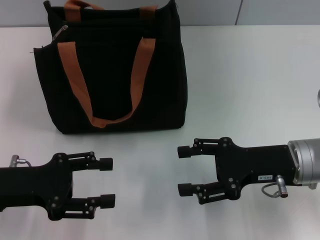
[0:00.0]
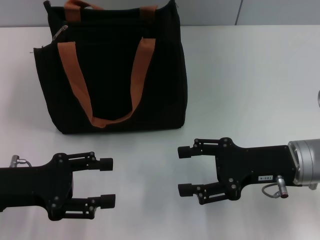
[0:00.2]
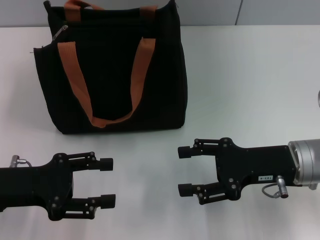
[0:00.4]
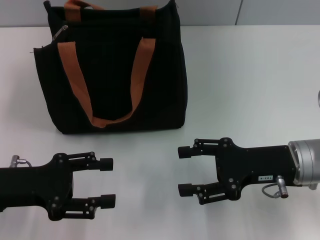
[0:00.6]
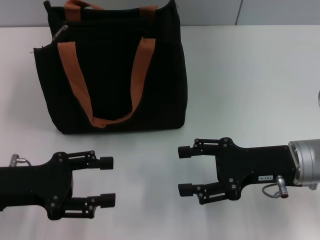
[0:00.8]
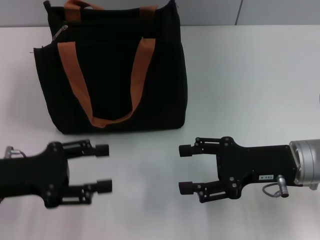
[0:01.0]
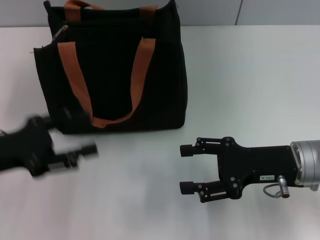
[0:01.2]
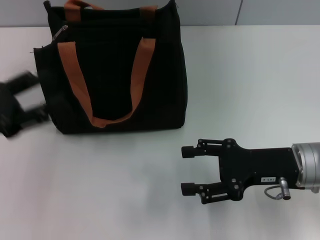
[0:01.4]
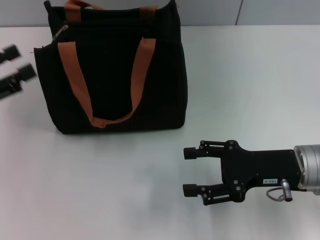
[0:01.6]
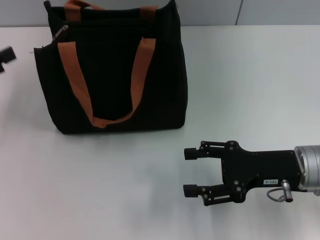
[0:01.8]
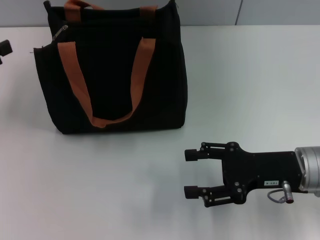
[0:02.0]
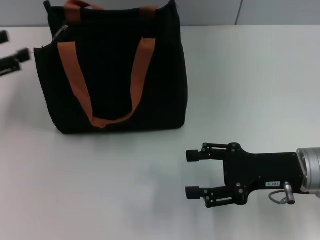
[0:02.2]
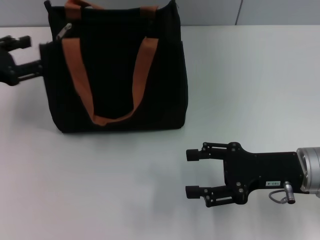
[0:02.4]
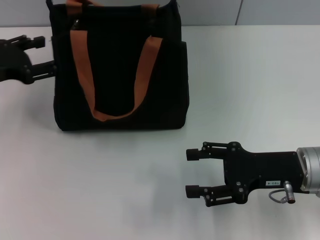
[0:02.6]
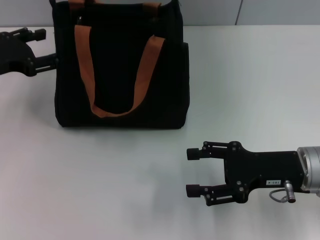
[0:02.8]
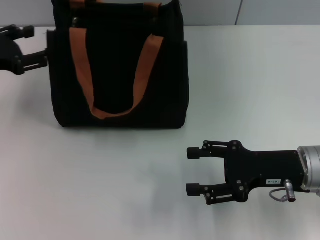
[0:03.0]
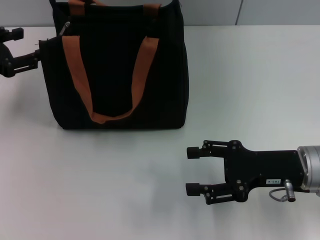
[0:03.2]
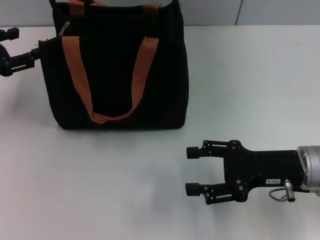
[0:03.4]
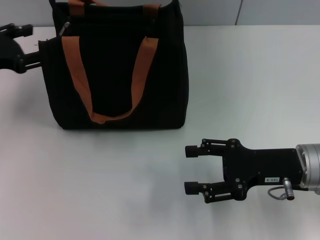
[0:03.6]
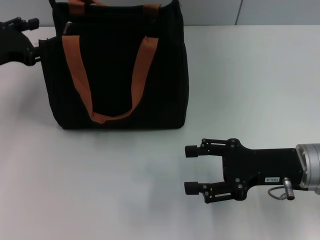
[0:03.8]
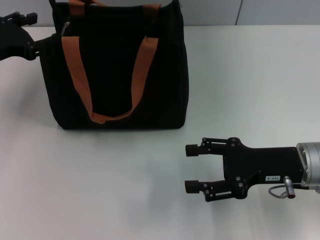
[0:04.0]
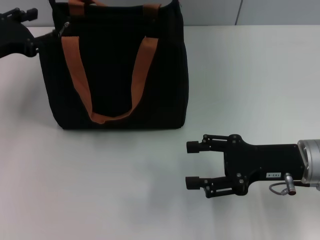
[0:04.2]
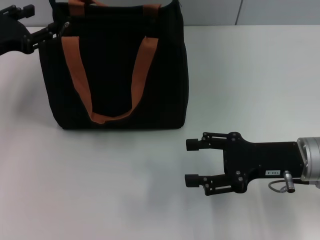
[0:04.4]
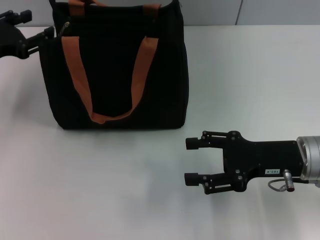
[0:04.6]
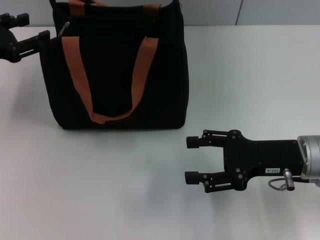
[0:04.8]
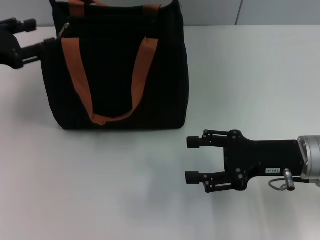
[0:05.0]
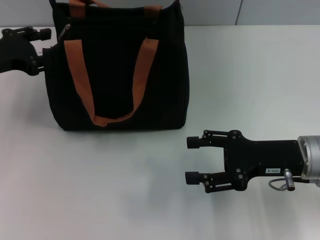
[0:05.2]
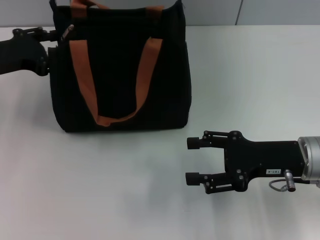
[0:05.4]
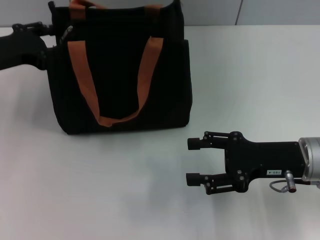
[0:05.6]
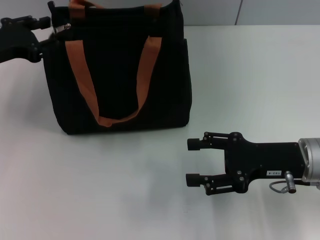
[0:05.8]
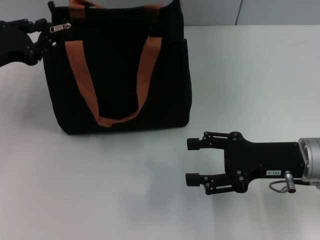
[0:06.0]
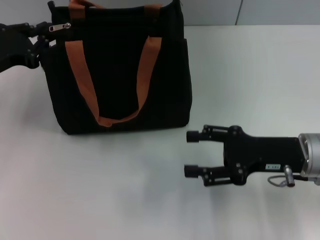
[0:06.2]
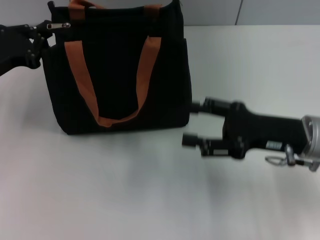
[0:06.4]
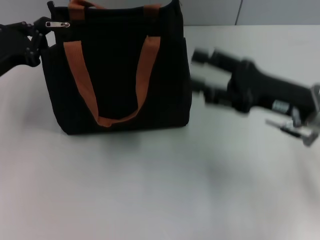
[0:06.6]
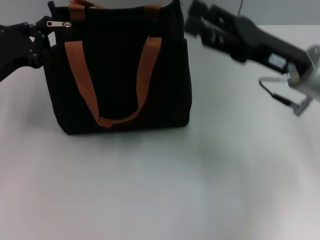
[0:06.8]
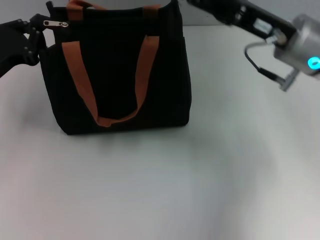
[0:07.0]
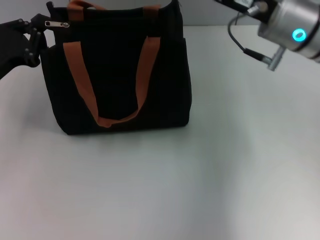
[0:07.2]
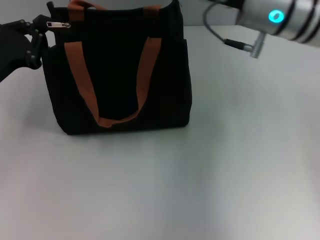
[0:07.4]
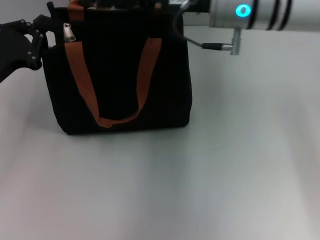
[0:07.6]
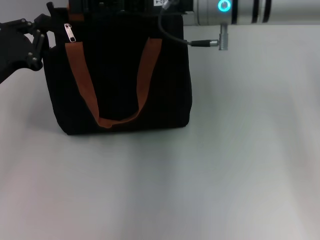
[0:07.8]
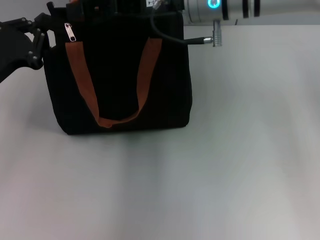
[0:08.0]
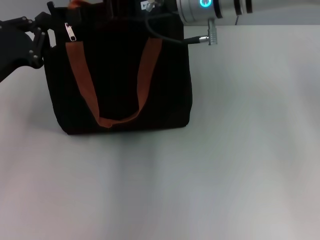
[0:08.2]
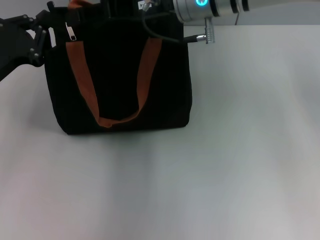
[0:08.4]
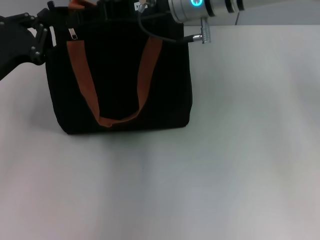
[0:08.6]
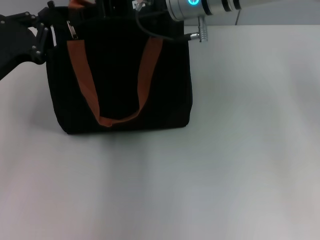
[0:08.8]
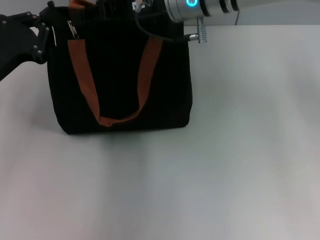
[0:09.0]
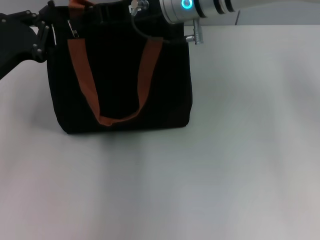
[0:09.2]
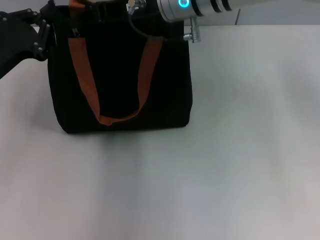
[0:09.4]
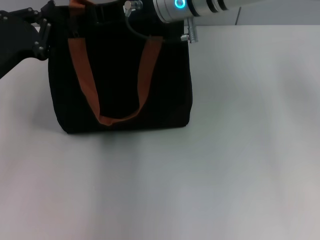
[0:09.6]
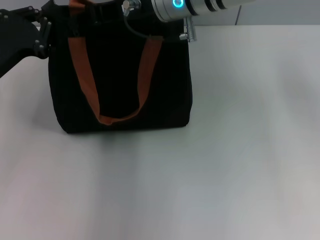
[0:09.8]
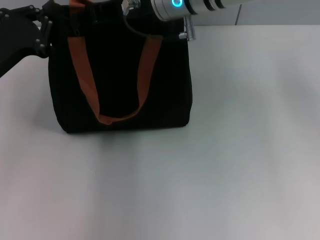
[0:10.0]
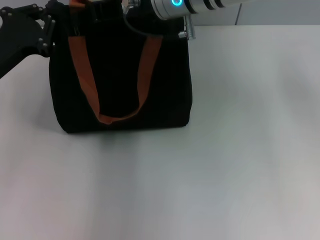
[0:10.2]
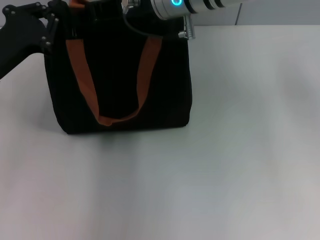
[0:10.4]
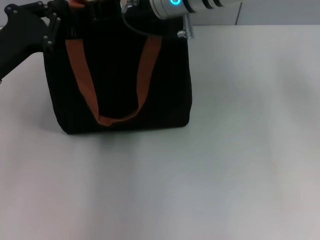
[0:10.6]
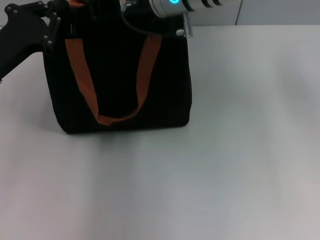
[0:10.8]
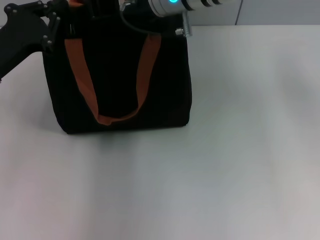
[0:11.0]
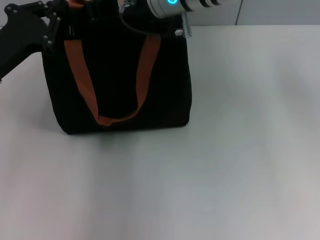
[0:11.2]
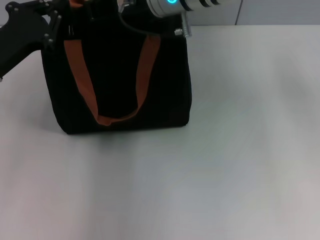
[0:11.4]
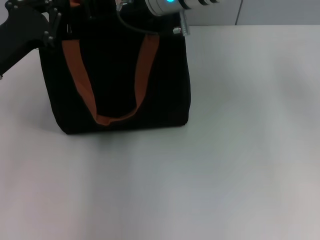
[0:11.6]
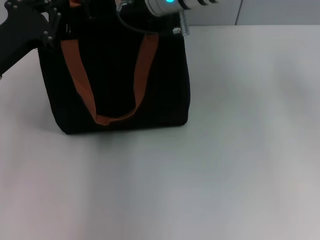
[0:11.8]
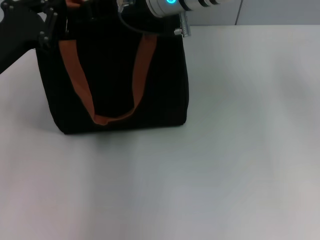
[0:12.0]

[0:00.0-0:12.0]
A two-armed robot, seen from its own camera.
0:00.0 to 0:01.6: The left gripper shifts roughly 5 cm to the left.
0:01.6 to 0:03.0: The left gripper moves forward, roughly 10 cm.
0:03.0 to 0:06.0: The grippers make only small movements.
0:06.0 to 0:07.6: The left gripper closes up. The right gripper moves upward, forward and to the left, some 25 cm.
0:07.6 to 0:09.0: The right gripper moves about 5 cm, and closes its fingers.
0:09.0 to 0:10.4: There are only small adjustments of the grippers.
0:10.4 to 0:12.0: Neither gripper changes place.

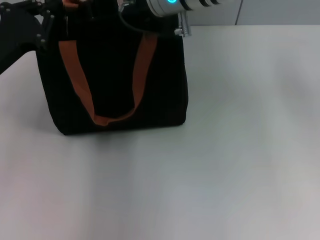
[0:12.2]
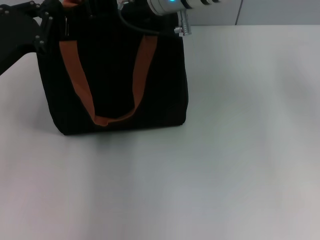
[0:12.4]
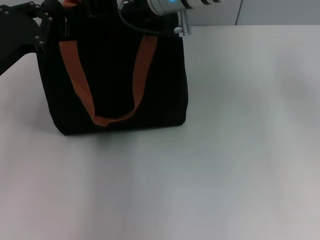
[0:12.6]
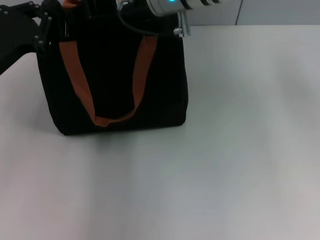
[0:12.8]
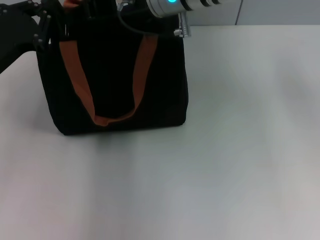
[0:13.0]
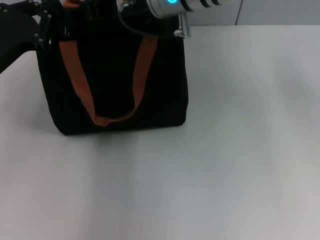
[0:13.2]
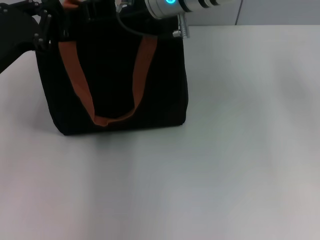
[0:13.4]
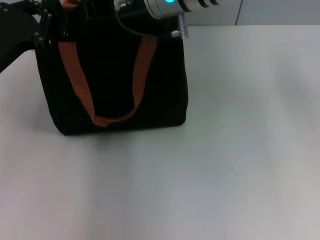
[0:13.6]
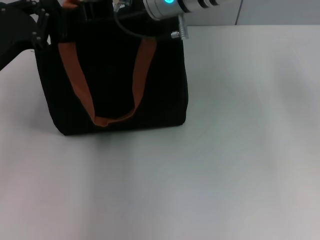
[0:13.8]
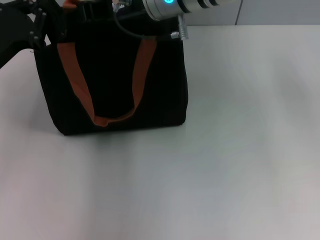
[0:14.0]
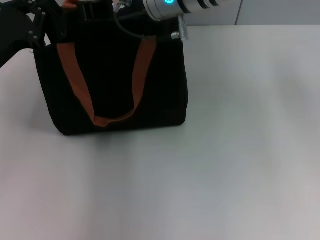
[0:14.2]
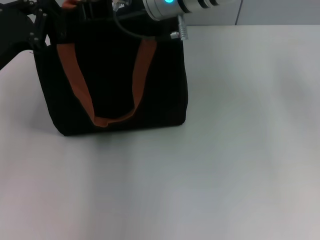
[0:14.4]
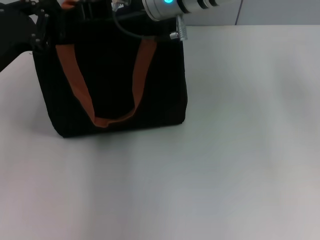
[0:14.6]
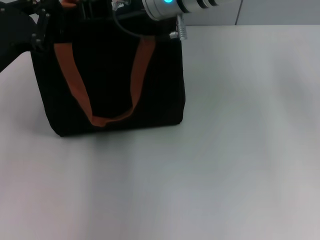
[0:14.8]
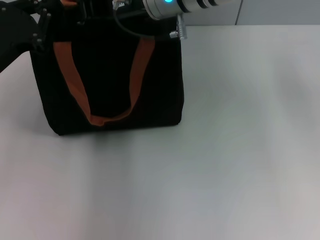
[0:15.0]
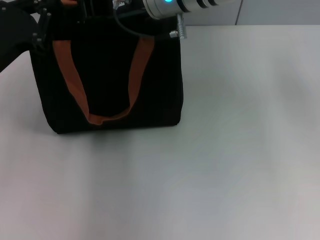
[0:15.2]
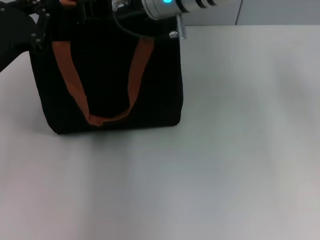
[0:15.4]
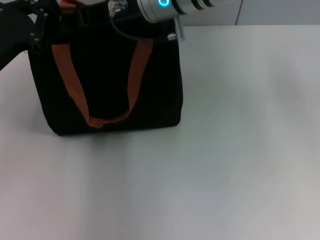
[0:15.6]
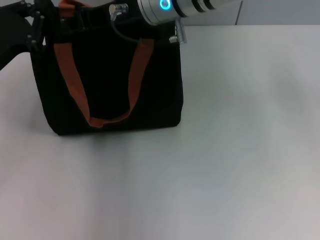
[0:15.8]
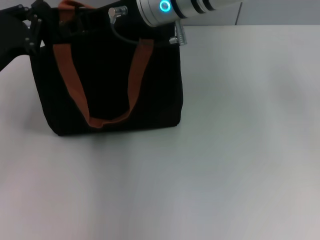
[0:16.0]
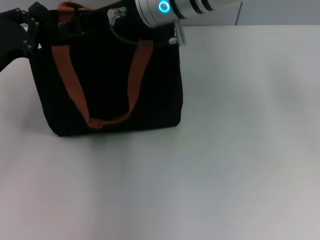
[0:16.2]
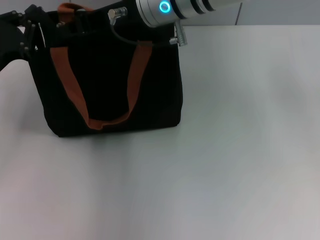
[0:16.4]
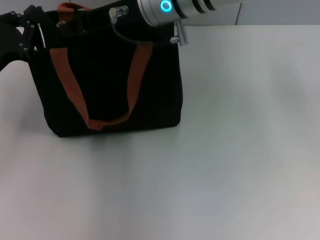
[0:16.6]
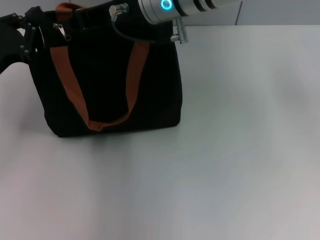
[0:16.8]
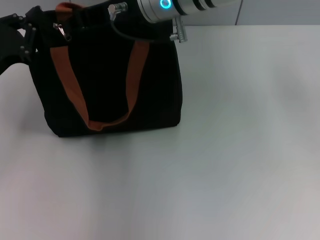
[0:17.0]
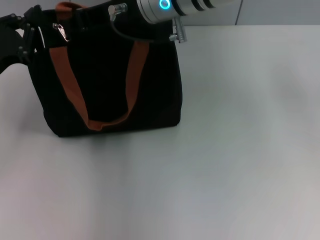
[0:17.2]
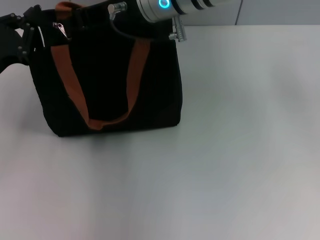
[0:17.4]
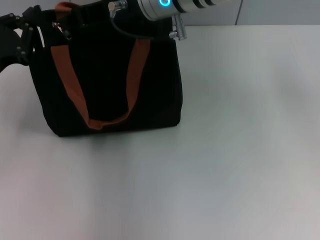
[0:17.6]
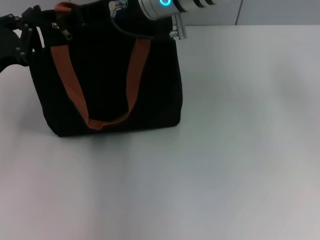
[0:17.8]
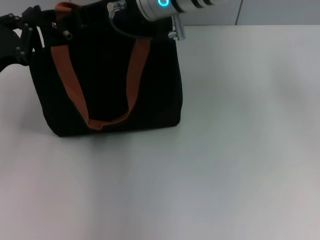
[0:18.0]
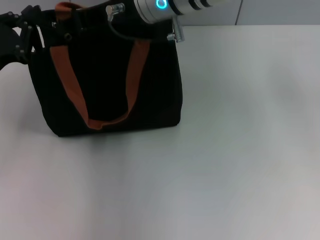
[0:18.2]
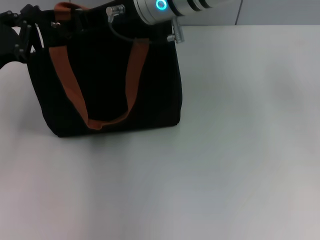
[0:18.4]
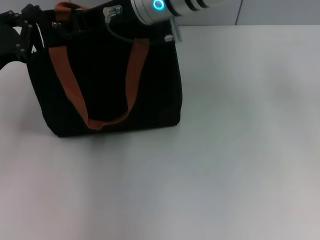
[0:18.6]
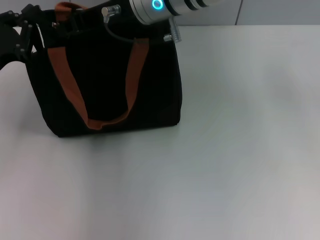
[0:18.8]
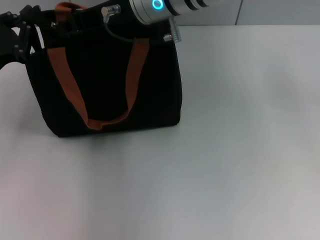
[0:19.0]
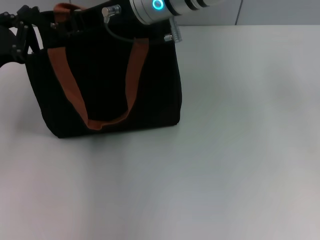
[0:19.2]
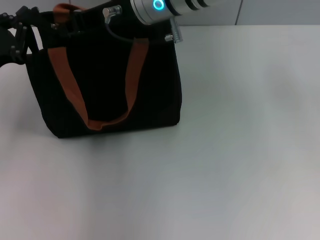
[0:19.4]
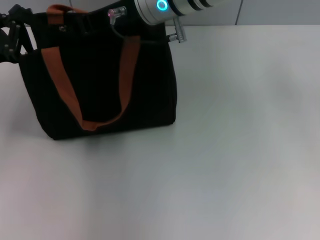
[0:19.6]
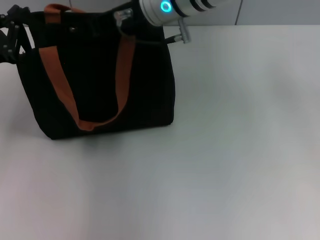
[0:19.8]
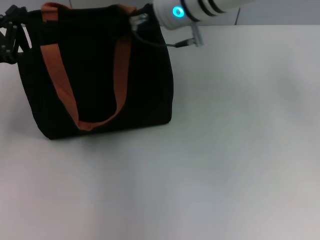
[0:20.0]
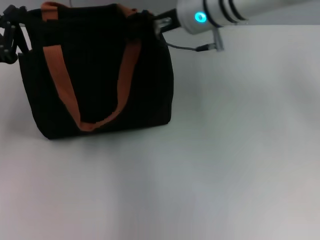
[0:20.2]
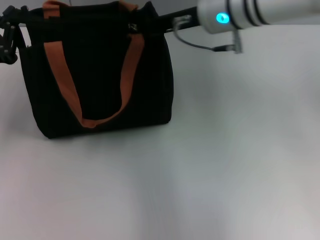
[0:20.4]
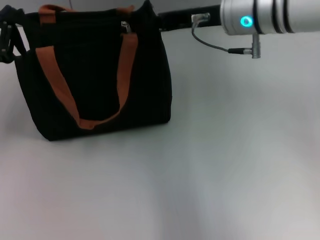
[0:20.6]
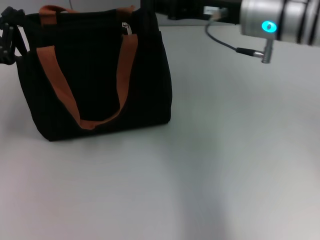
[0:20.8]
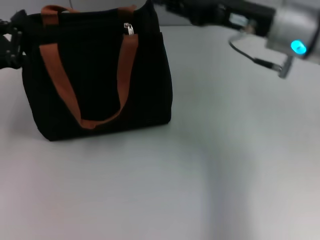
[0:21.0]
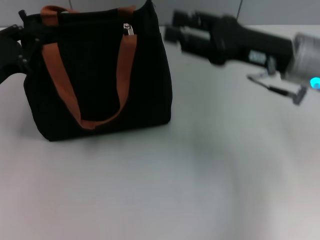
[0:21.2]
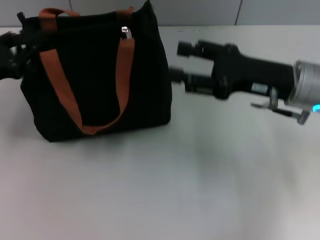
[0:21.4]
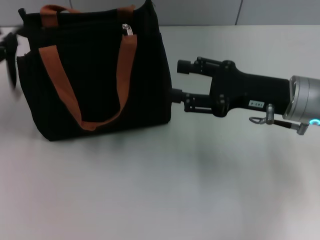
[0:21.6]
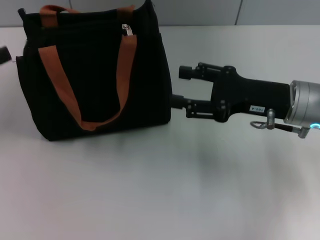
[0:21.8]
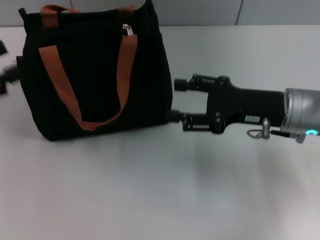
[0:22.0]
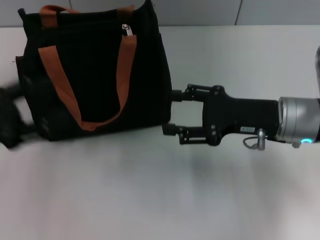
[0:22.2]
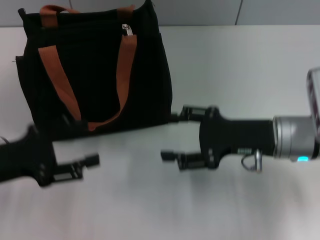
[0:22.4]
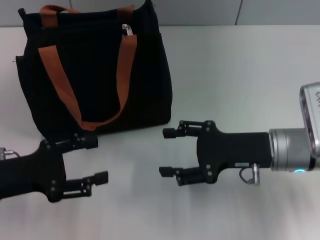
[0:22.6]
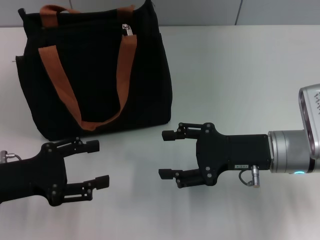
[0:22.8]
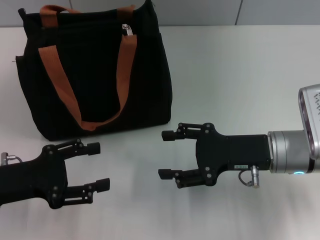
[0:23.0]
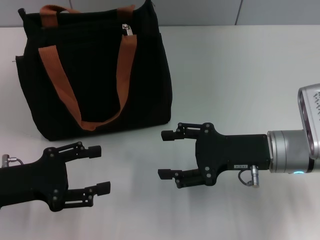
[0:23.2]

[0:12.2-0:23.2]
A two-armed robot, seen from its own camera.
Step, 0:12.2 to 0:20.4: Pull up the zipper with your right hand.
Step, 0:20.8 to 0:21.6: Grab the zipper with your left hand.
0:12.2 to 0:13.8: There are only small adjustments of the grippers.
0:13.8 to 0:15.4: Both grippers stay put.
0:15.4 to 0:17.0: The right gripper closes up.
0:17.0 to 0:18.4: The two grippers keep their place.
0:18.4 to 0:20.0: The grippers make only small movements.
0:20.0 to 0:21.6: The right gripper travels to the right, backward and downward by roughly 20 cm, and opens its fingers.
0:21.6 to 0:23.2: The right gripper ends up some 5 cm from where it was; the left gripper travels backward and to the right by some 10 cm, and opens.
